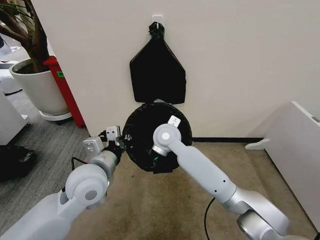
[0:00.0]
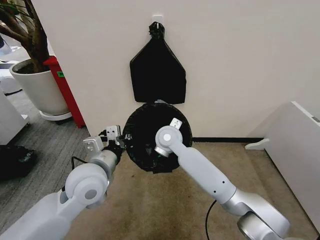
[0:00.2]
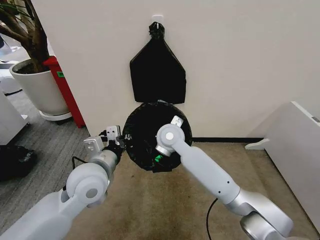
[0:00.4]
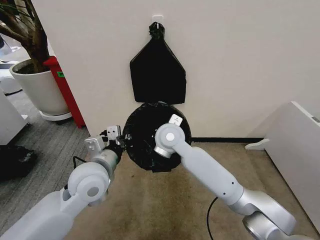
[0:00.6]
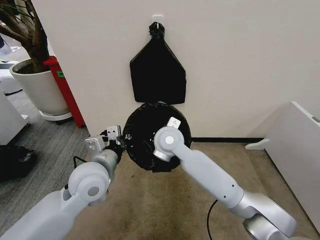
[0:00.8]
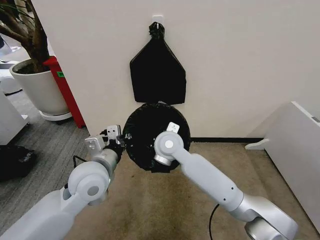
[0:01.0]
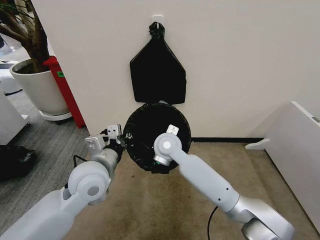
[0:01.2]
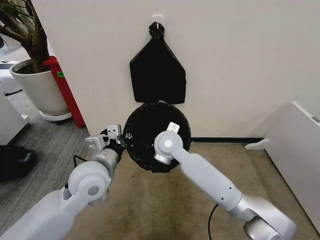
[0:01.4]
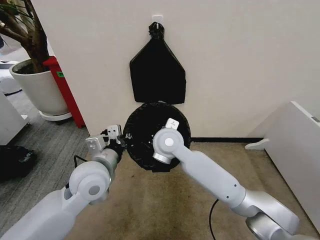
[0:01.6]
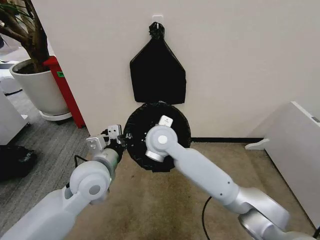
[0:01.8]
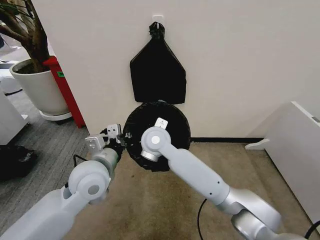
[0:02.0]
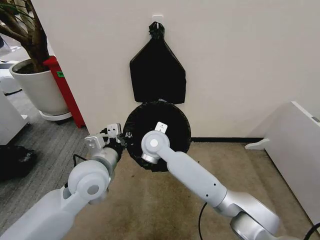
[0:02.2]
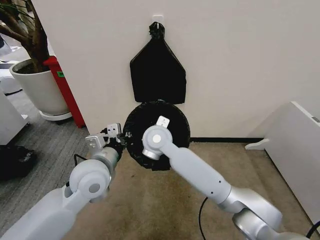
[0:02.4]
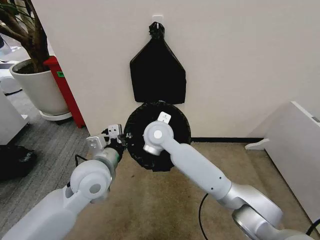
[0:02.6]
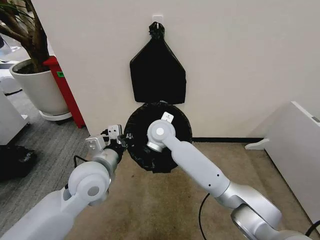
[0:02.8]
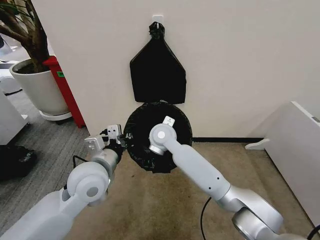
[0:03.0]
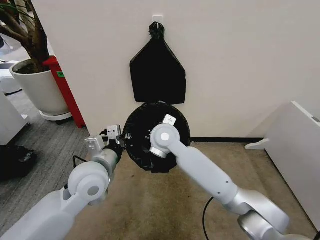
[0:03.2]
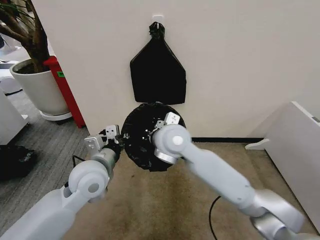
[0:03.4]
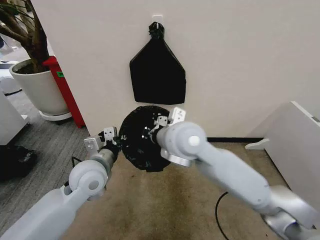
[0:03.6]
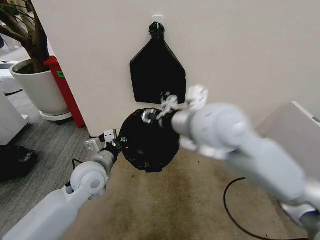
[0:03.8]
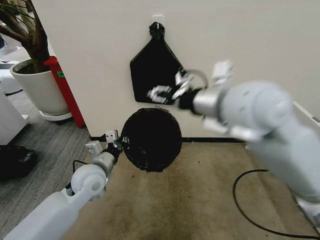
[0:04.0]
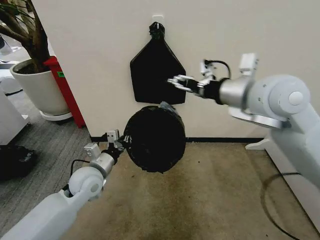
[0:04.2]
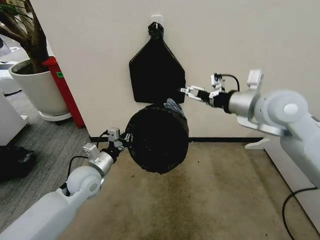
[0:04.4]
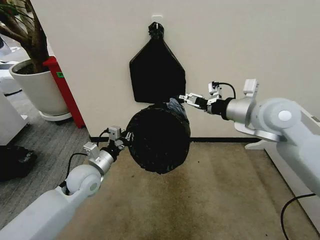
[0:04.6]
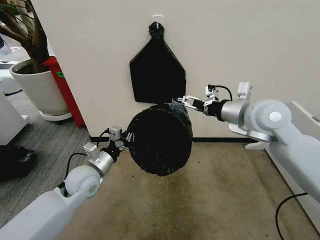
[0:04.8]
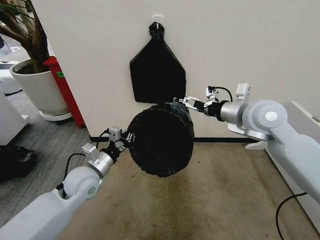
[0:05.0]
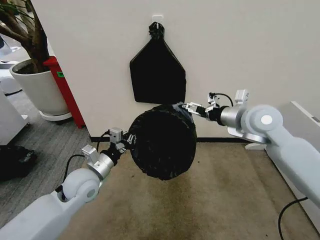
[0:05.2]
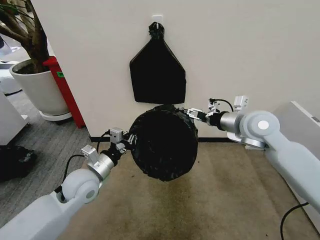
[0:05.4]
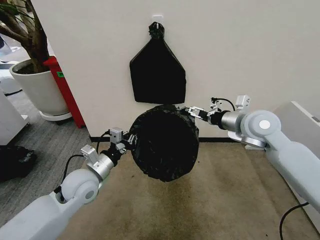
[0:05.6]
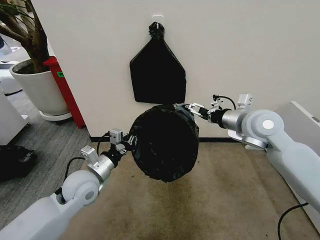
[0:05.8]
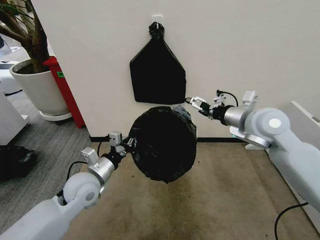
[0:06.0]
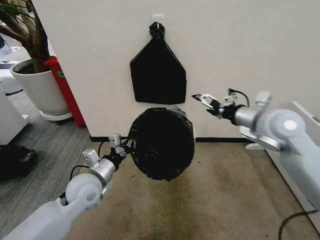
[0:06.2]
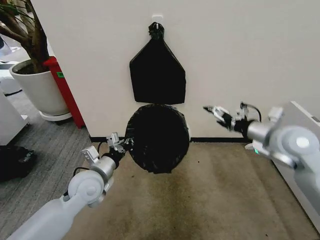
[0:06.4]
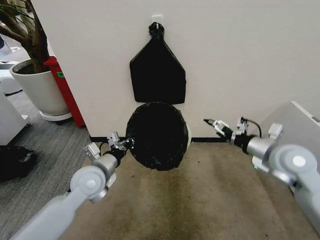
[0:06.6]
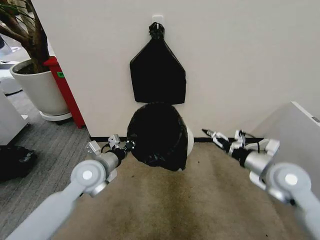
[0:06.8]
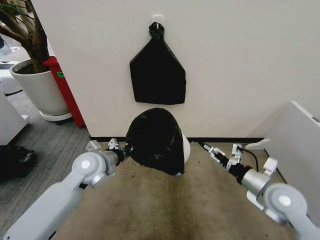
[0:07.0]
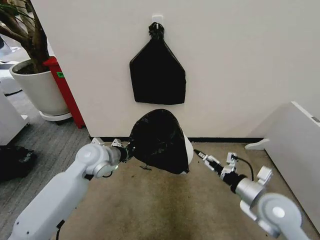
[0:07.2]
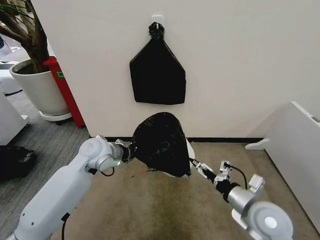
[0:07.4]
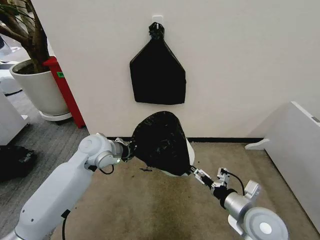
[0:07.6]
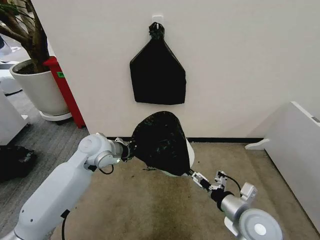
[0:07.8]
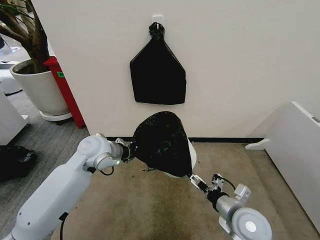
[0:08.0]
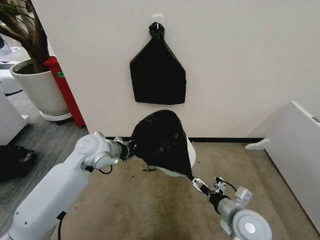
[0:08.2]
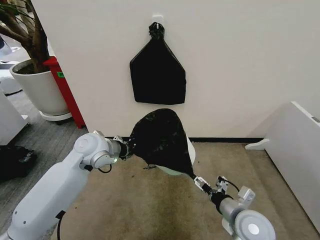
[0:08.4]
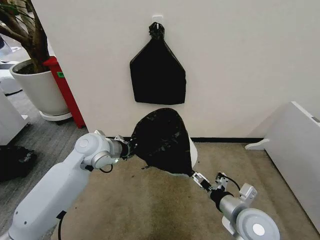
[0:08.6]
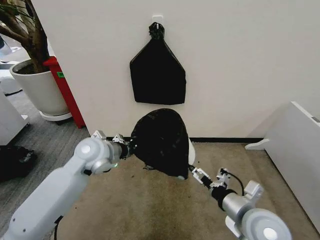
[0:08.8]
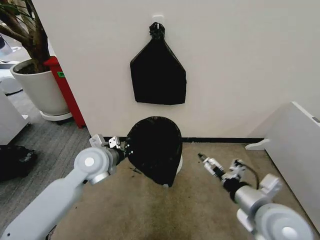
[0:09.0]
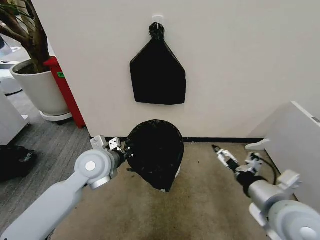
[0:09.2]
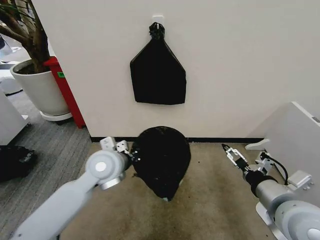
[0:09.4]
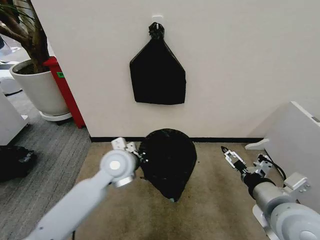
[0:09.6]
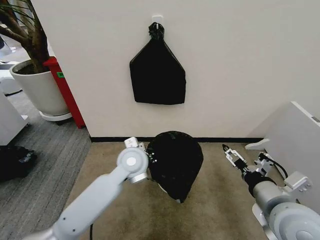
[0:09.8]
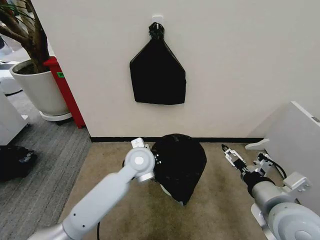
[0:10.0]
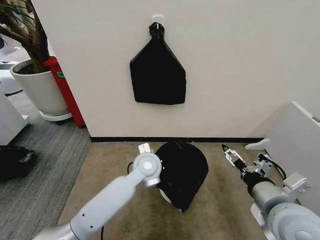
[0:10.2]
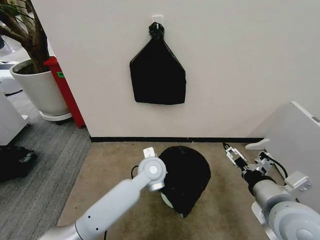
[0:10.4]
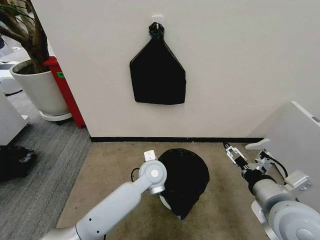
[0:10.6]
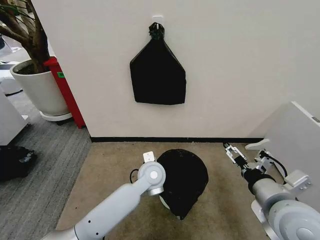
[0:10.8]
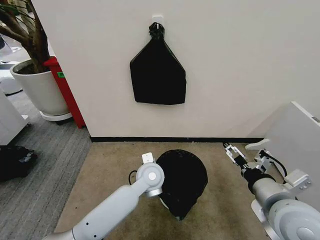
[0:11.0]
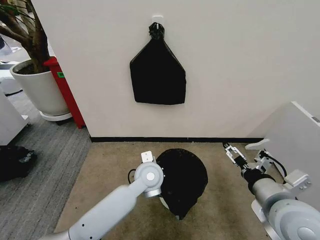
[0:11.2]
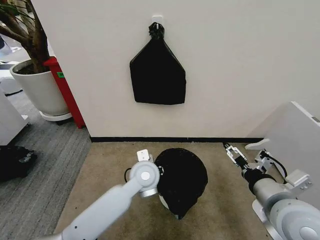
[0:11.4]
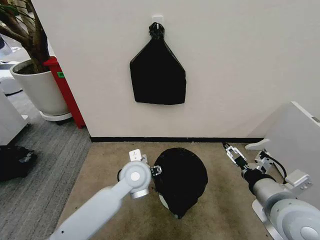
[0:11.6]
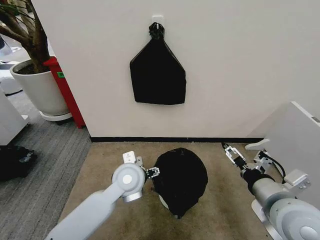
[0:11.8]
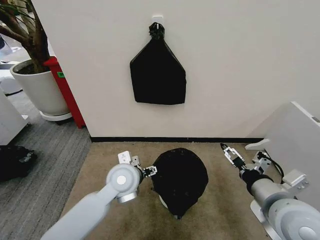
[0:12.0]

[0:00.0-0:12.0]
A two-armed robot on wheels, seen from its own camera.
Task of the whole recording: Place the garbage bag over the trash bin.
0:00.0 to 0:01.6: The right gripper moves roughly 5 cm.
0:01.6 to 0:03.0: The right gripper shifts approximately 5 cm forward.
0:03.0 to 0:04.4: The left gripper heads downward and to the left, covering some 10 cm, while the right gripper is displaced to the right and upward by roughly 30 cm, and opens.
0:04.4 to 0:06.0: The right gripper goes approximately 5 cm downward.
0:06.0 to 0:07.6: The right gripper travels downward and backward by approximately 25 cm; the left gripper heads forward and upward, covering about 10 cm.
0:07.6 to 0:09.0: The right gripper shifts roughly 10 cm upward.
0:09.0 to 0:10.4: The left gripper heads to the right and downward, covering about 20 cm.
0:10.4 to 0:12.0: The left gripper moves to the left, roughly 10 cm, and opens.

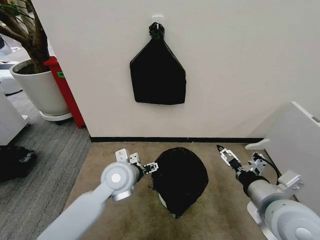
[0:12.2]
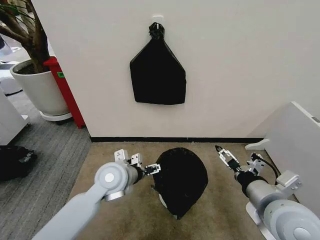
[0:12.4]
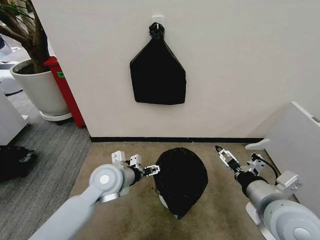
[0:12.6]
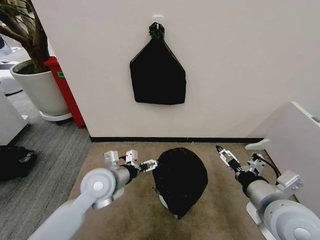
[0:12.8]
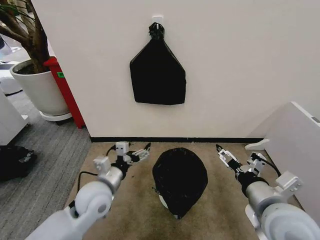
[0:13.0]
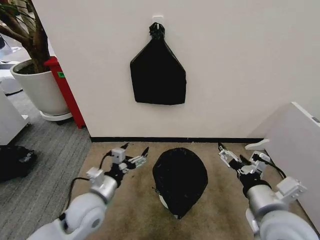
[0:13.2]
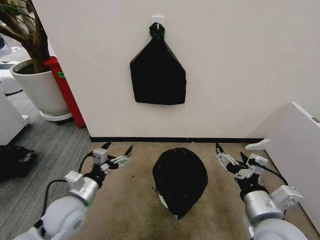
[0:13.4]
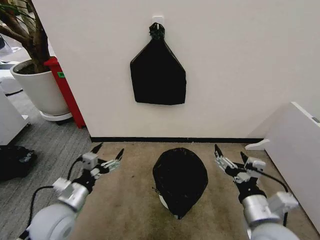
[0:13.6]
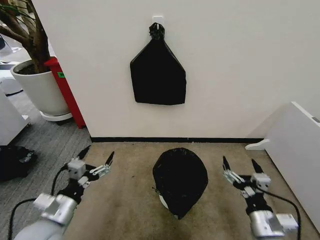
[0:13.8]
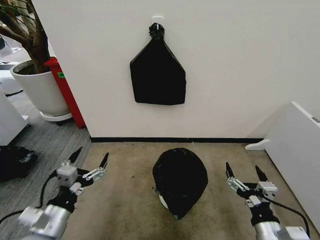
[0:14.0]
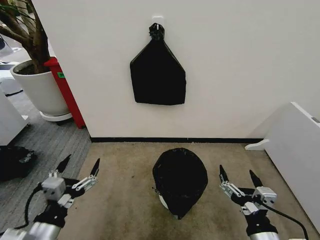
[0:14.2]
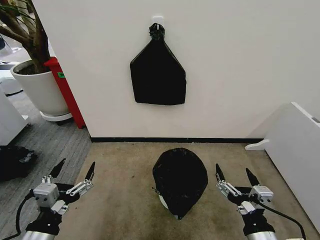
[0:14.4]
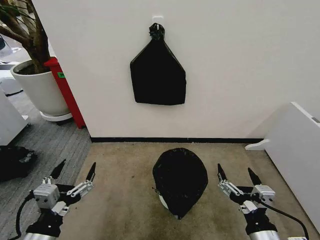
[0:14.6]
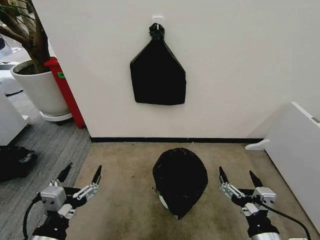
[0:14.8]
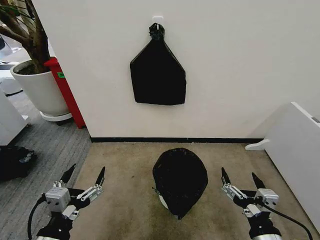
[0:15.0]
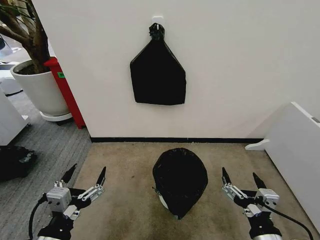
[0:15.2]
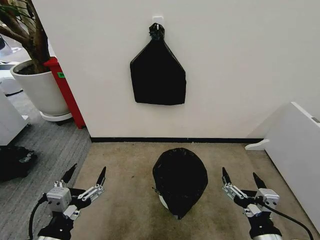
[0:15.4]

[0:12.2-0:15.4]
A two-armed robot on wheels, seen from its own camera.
Task of the whole recording: Place the garbage bag over the trash bin.
0:12.2 to 0:13.8: The left gripper shifts approximately 20 cm to the left and backward. The right gripper travels downward by some 15 cm.
0:13.8 to 0:15.4: The right gripper heads backward, covering some 5 cm; the left gripper heads backward, covering roughly 10 cm.
